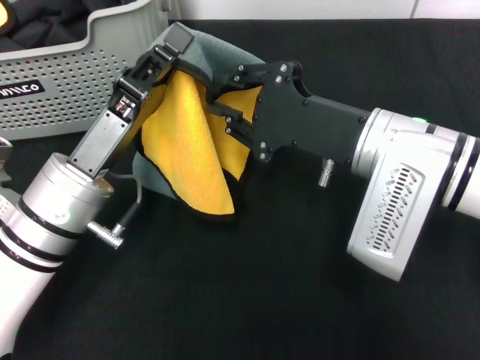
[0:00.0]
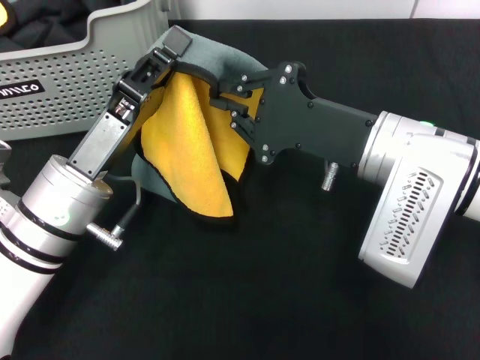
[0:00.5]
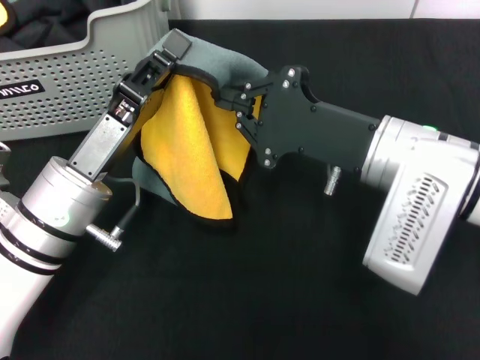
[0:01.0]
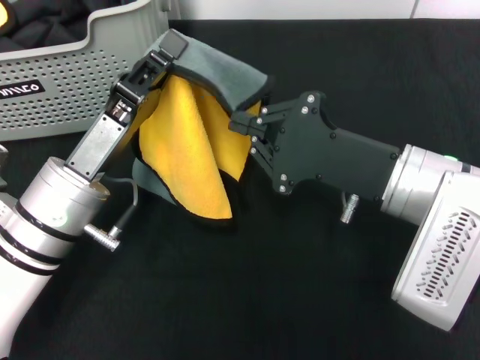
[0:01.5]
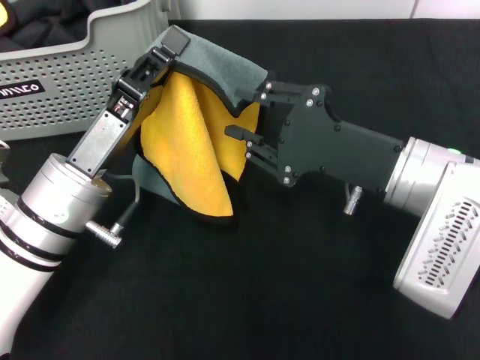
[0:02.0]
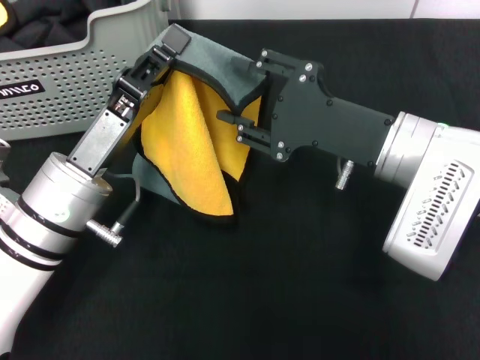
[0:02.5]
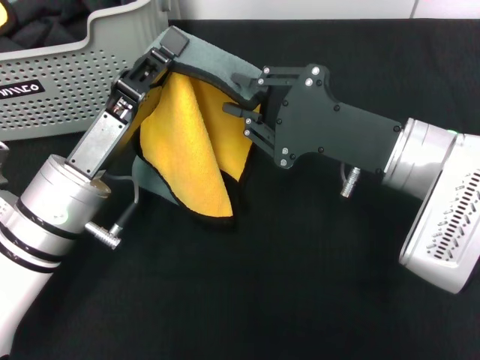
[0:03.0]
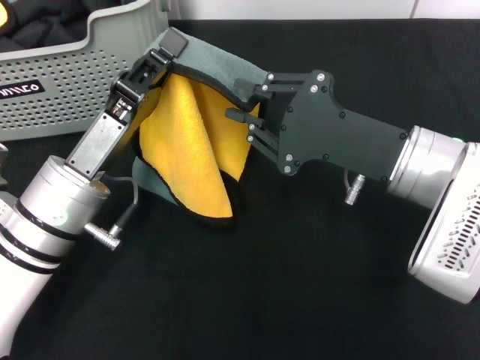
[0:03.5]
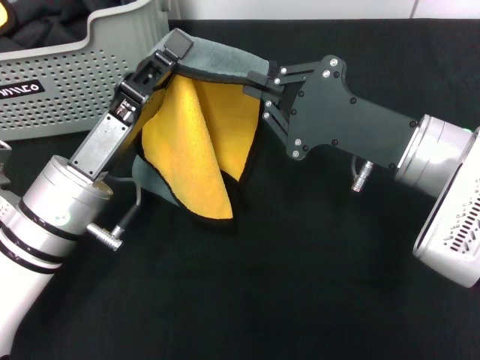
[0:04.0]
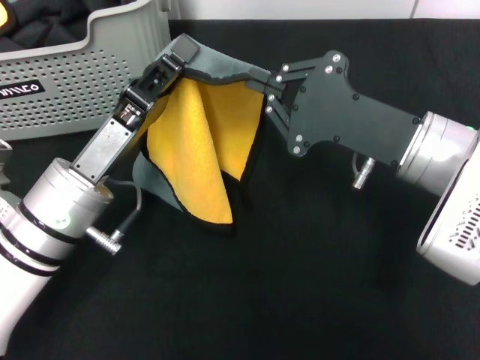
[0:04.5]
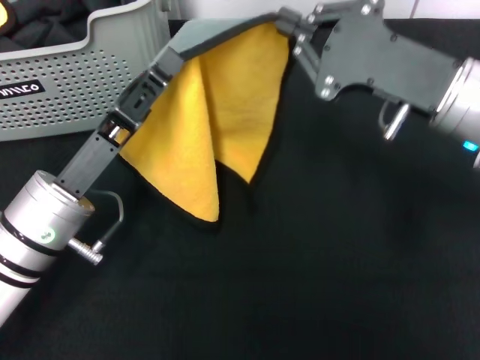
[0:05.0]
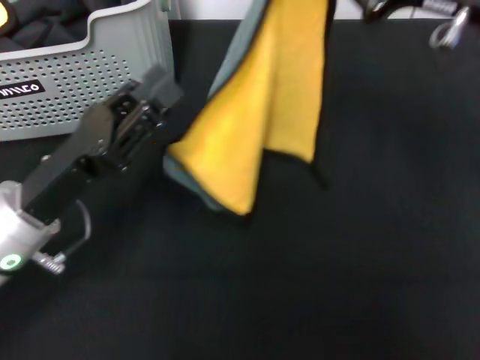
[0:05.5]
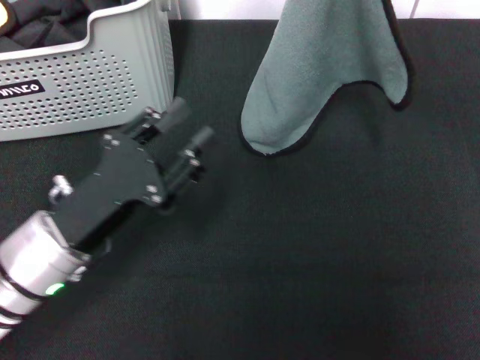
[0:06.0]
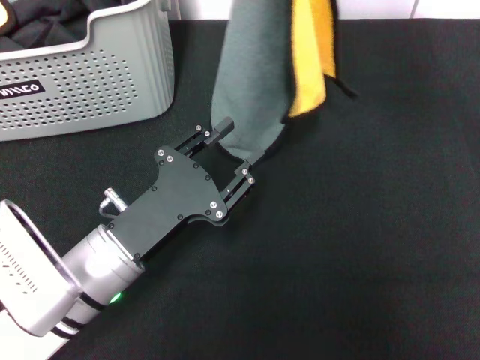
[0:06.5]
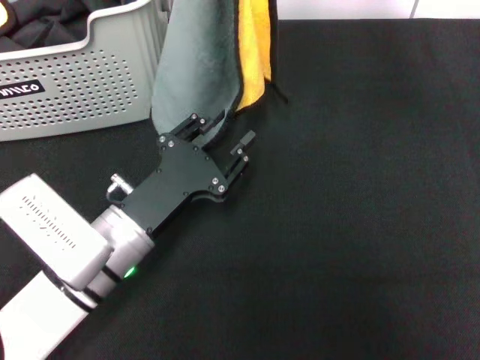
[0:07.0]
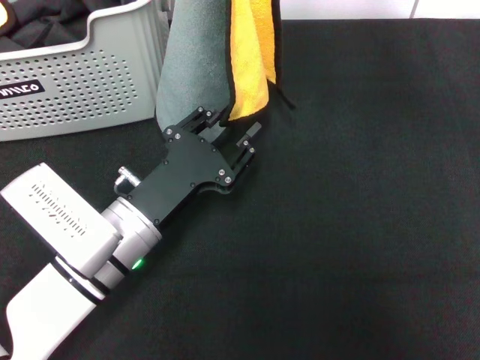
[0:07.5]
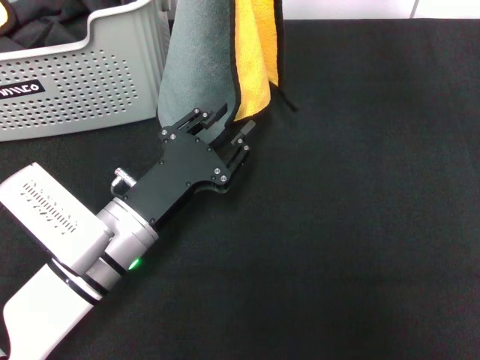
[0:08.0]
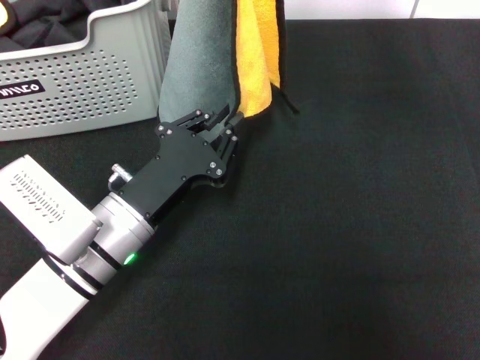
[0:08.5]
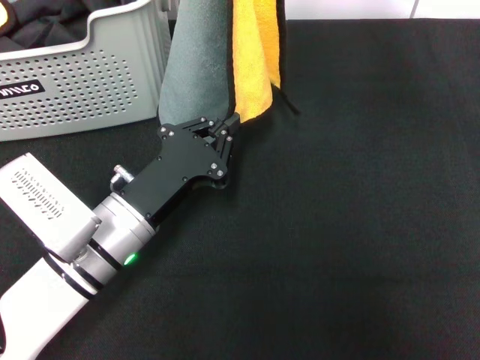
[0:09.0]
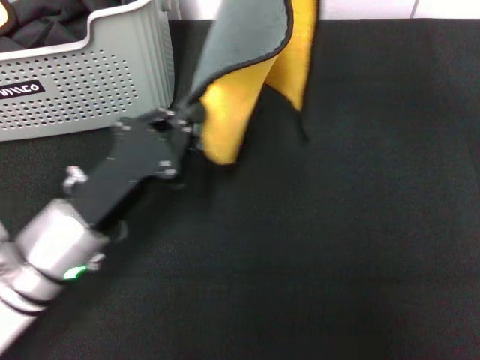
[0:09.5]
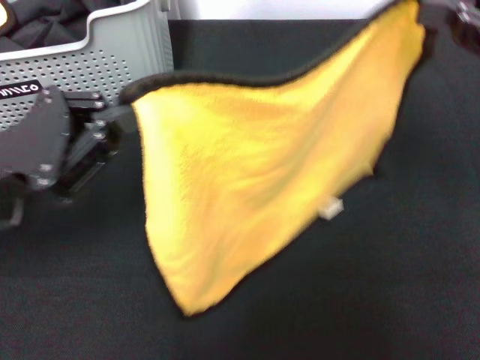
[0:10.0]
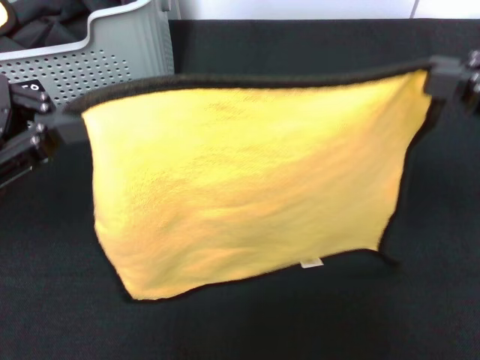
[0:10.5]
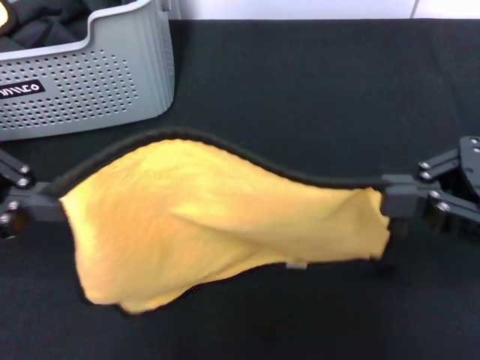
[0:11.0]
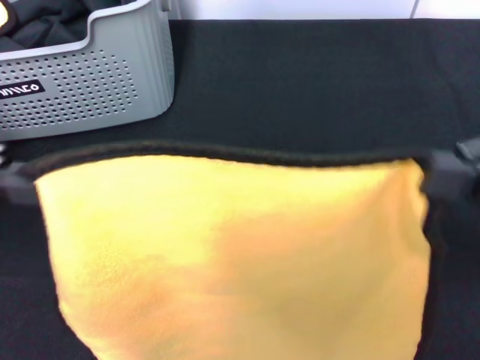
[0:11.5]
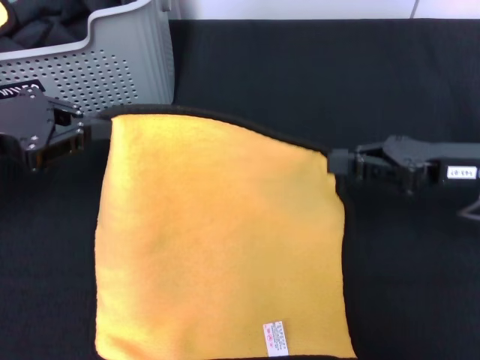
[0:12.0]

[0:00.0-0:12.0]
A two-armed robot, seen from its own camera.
Task of the whole recording: pick up the towel from the storage box and lay it flat on the black tablecloth.
0:02.0 to 0:04.0: The right gripper opens, then closes once more.
0:04.0 to 0:06.0: The right gripper heads upward, to the right and forward, covering some 20 cm. Meanwhile the left gripper opens its fingers.
0:06.0 to 0:08.0: The right gripper shifts some 10 cm to the left; the left gripper heads to the right, covering roughly 5 cm.
0:08.0 to 0:10.0: The left gripper heads to the left and upward, covering approximately 15 cm, and closes up; the right gripper travels to the right and backward by about 15 cm.
0:10.0 to 0:12.0: The right gripper is displaced downward by approximately 15 cm; the left gripper shifts some 10 cm forward and to the left.

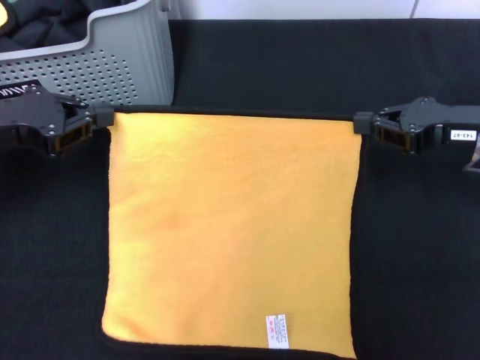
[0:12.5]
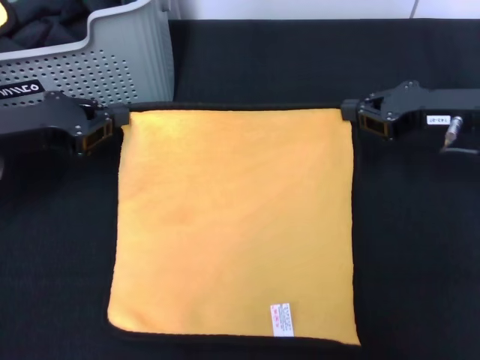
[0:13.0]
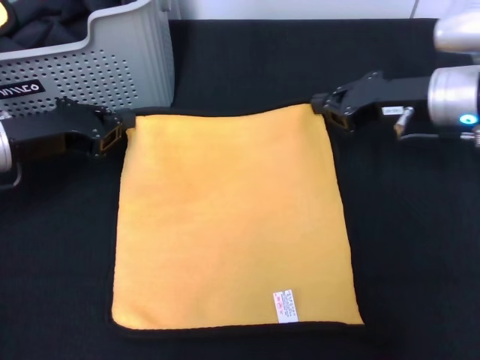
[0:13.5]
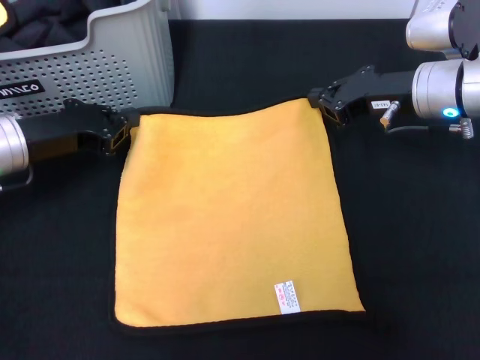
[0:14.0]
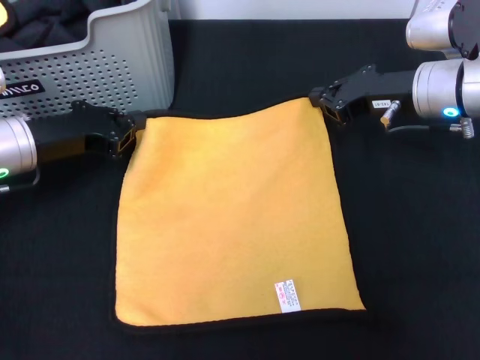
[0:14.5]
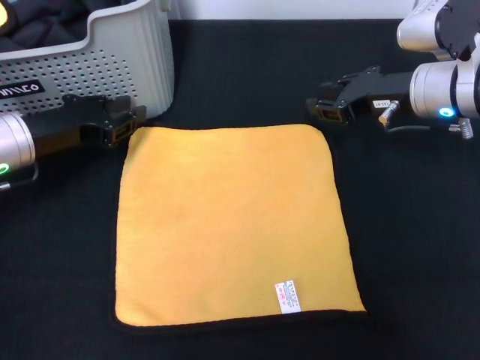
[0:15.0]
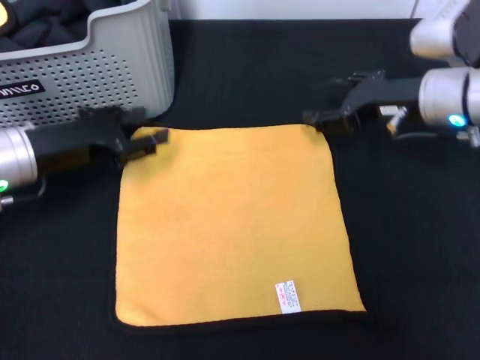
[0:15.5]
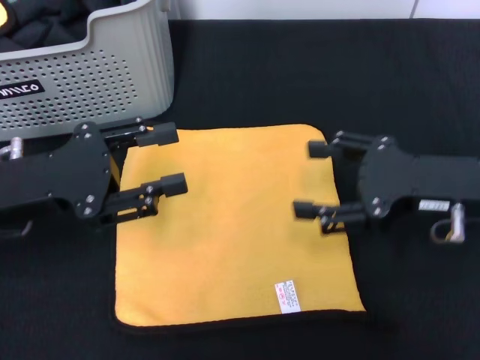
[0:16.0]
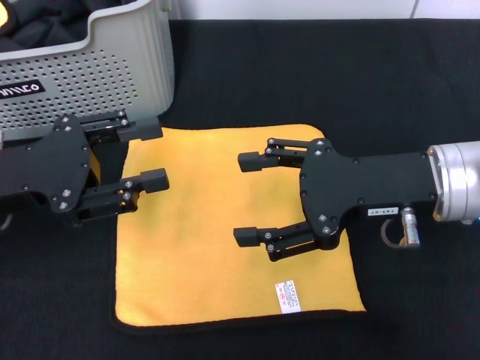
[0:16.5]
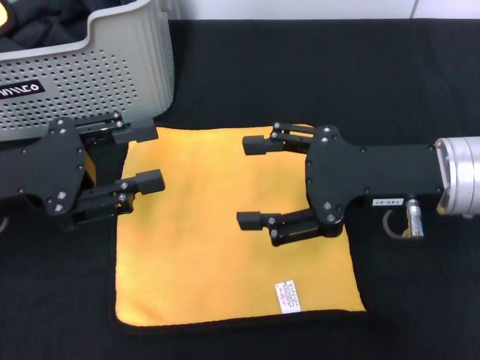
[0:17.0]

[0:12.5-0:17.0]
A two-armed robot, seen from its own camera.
Task of the whole recording: pick up the towel from the storage box and lay it flat on the black tablecloth.
Step, 0:12.5 to 0:14.5: Spread the towel flat with the right gripper.
0:12.5 to 0:14.5: The left gripper goes some 5 cm downward, while the right gripper is displaced to the left and forward by some 10 cm.
0:14.5 to 0:17.0: The right gripper goes approximately 10 cm backward, and opens its fingers. Meanwhile the left gripper travels backward by roughly 10 cm, and opens.
